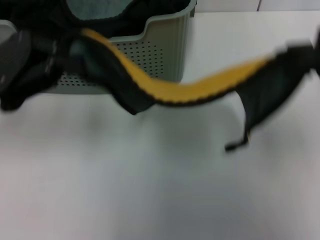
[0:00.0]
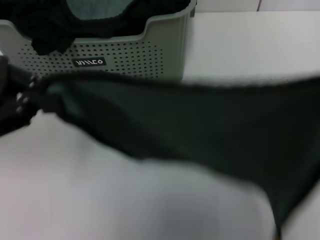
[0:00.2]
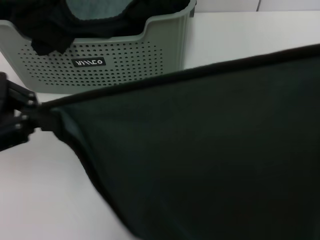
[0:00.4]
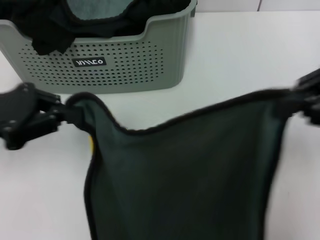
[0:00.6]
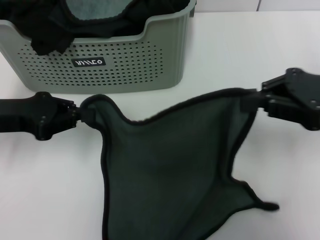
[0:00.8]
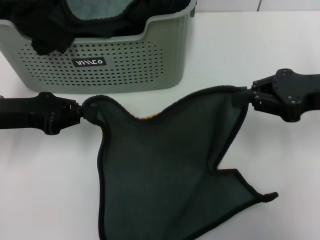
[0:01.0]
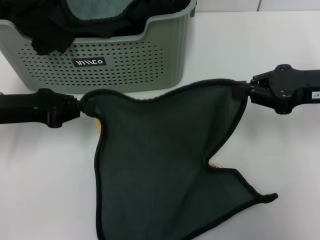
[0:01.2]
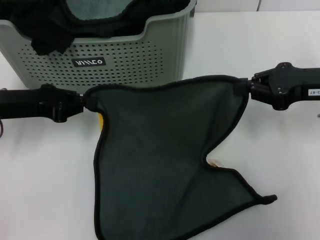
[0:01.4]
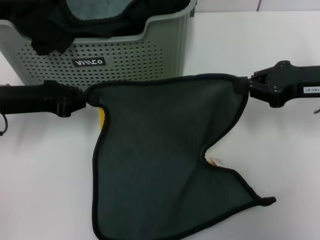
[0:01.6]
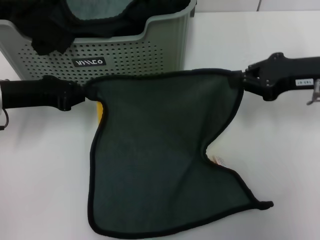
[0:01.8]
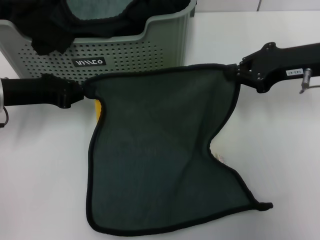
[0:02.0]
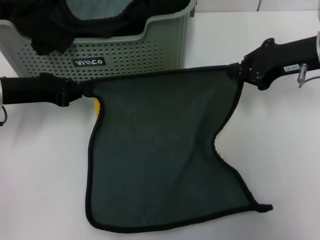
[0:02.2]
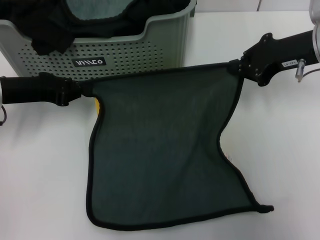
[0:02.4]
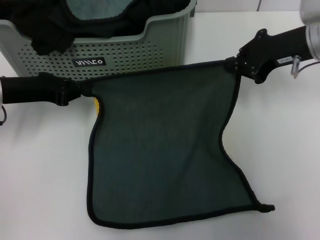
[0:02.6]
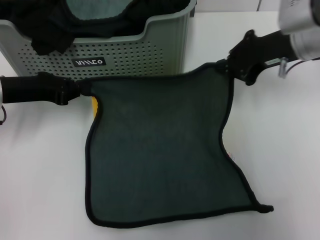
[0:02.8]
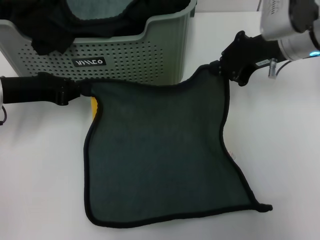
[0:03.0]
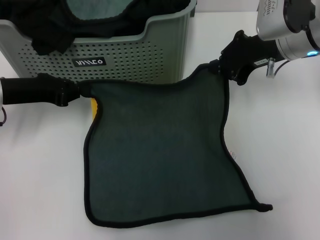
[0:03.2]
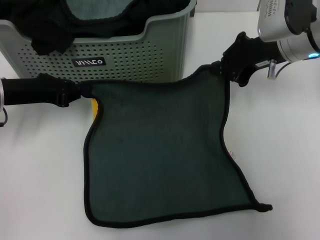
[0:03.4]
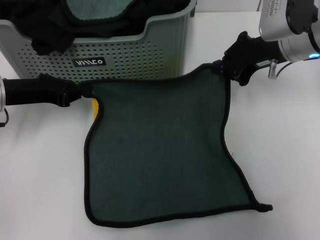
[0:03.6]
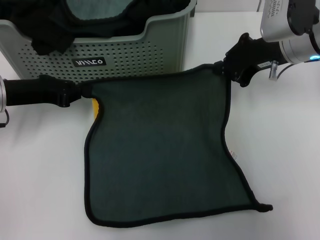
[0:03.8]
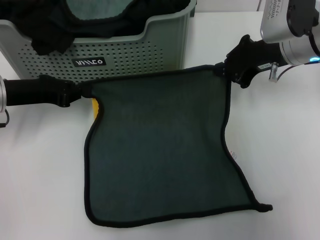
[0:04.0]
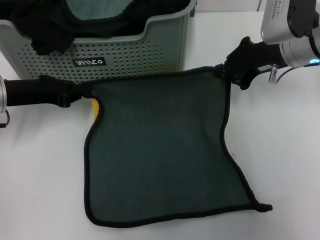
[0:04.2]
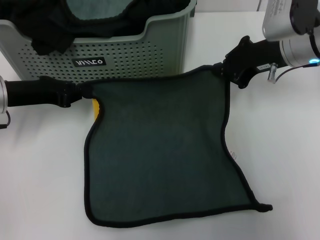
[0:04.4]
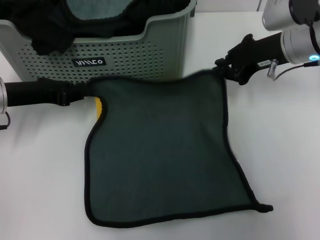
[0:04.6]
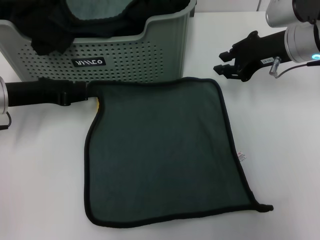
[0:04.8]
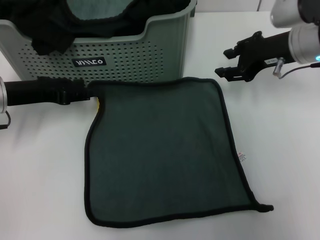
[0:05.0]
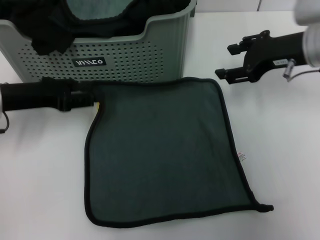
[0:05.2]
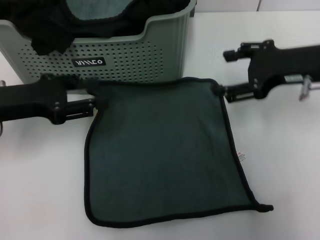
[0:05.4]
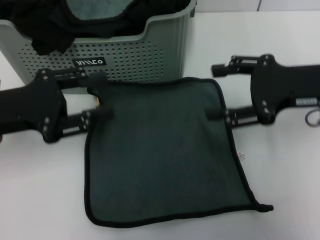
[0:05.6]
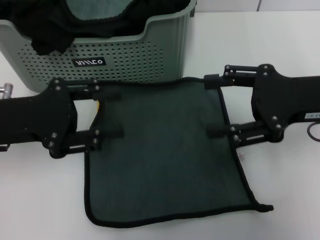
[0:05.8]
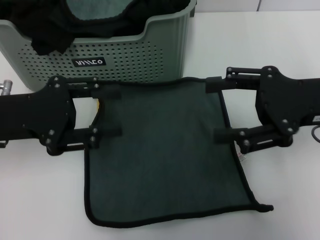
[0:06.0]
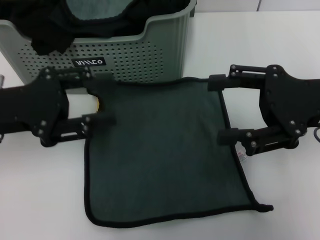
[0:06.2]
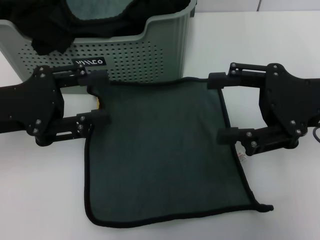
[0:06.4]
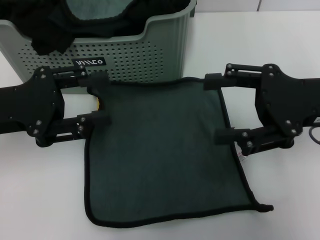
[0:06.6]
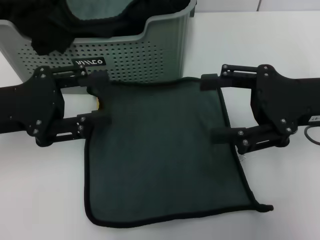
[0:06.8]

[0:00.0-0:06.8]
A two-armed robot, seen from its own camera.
Task of the whole recording: pick up the towel from the storage box and lay it flat on the table.
Step, 0:00.0 to 0:04.6: Spread the towel flat with the right gripper.
0:00.0 to 0:01.4: The left gripper is displaced downward by some 10 cm, while the right gripper heads downward and forward, covering some 15 cm.
0:01.4 to 0:02.8: The right gripper goes some 10 cm forward and to the left.
0:02.8 to 0:04.0: The grippers stay close to where they were, moving slightly.
0:04.0 to 0:05.4: The right gripper goes some 5 cm backward, and opens, while the left gripper opens.
